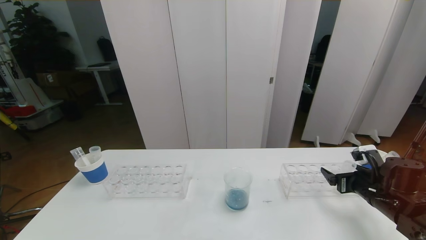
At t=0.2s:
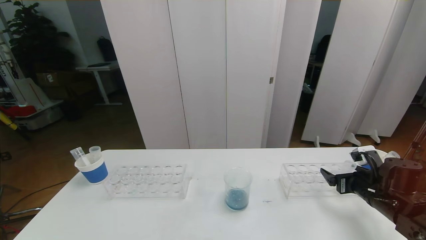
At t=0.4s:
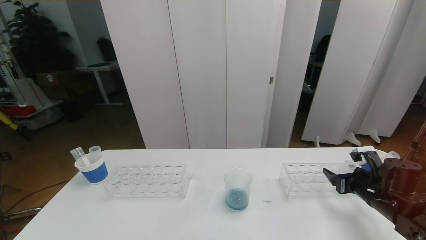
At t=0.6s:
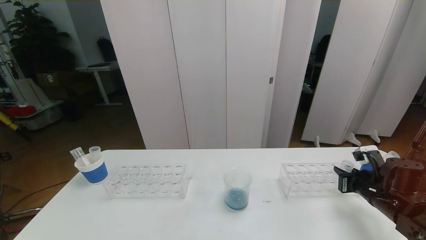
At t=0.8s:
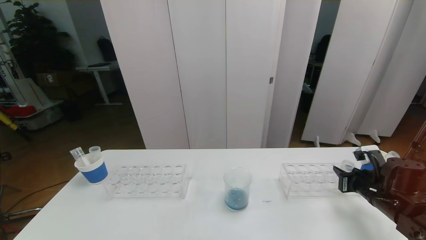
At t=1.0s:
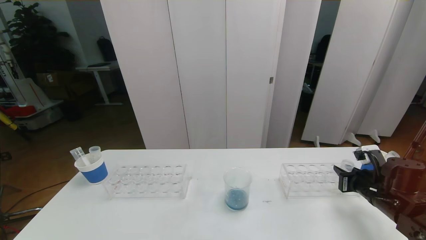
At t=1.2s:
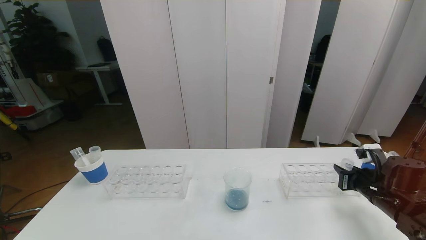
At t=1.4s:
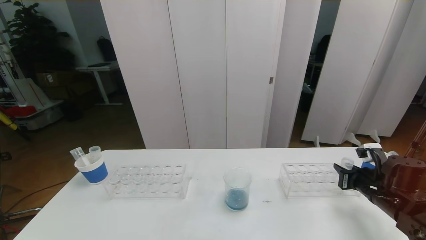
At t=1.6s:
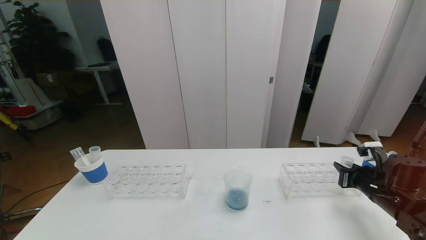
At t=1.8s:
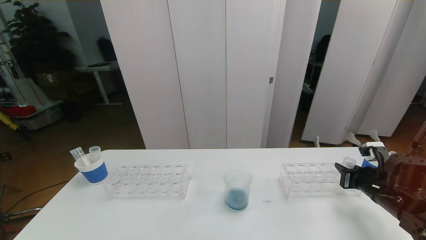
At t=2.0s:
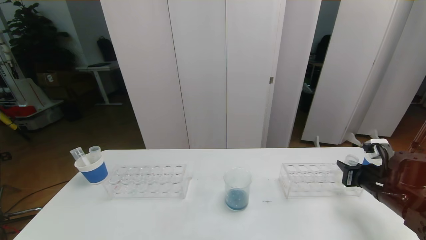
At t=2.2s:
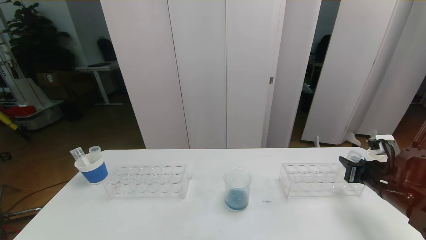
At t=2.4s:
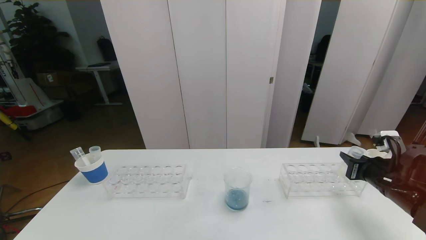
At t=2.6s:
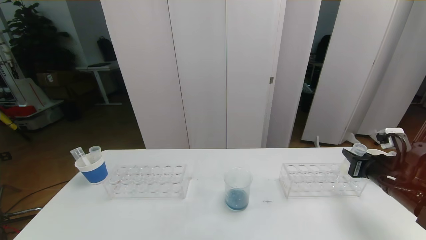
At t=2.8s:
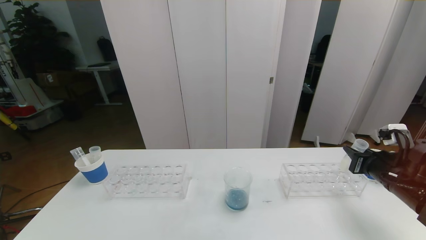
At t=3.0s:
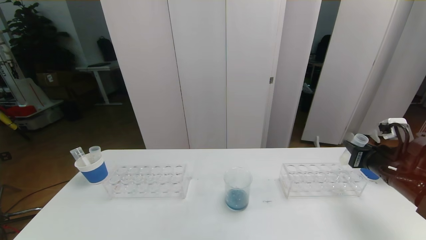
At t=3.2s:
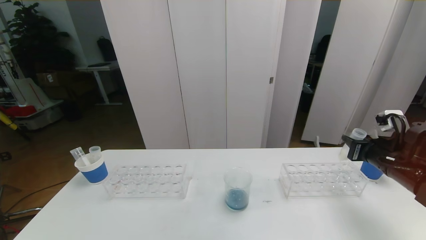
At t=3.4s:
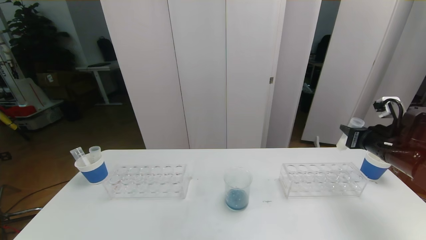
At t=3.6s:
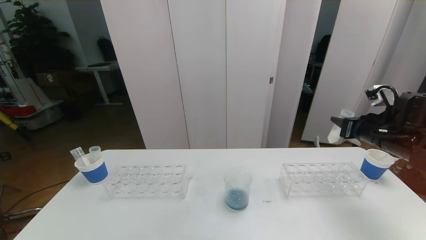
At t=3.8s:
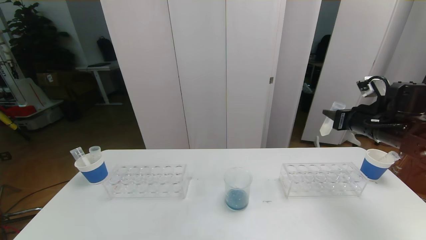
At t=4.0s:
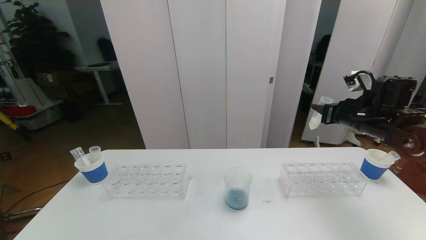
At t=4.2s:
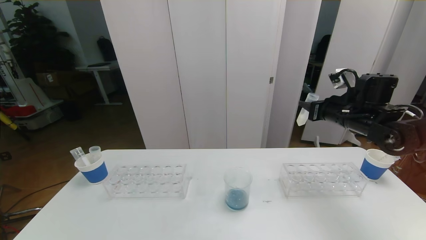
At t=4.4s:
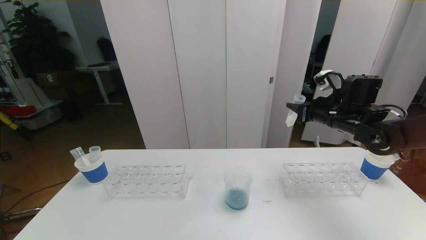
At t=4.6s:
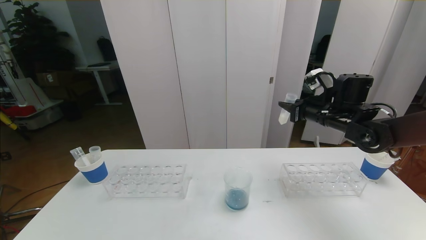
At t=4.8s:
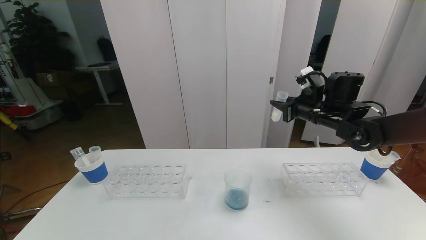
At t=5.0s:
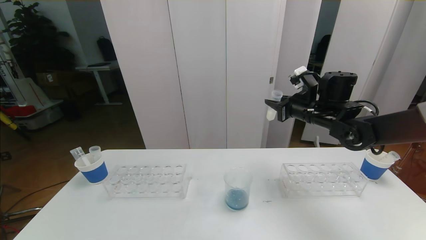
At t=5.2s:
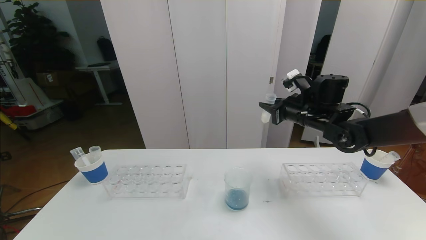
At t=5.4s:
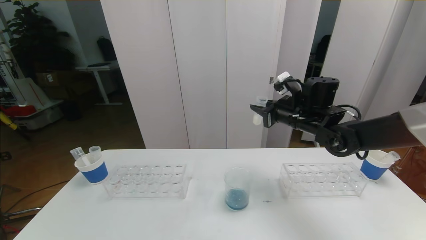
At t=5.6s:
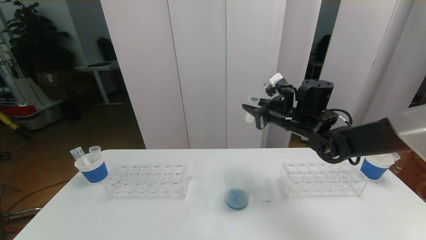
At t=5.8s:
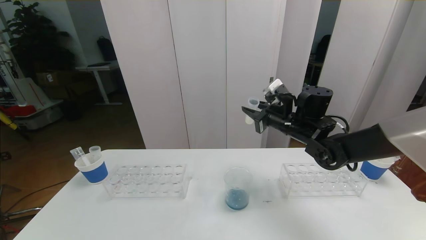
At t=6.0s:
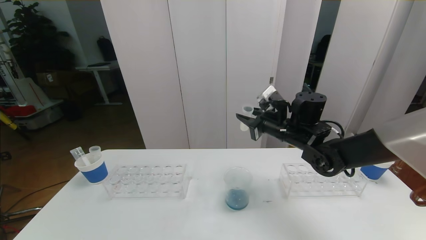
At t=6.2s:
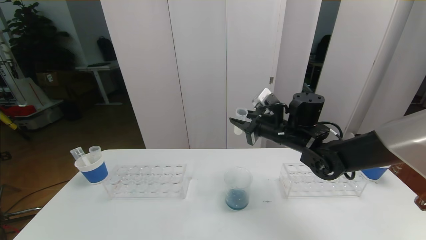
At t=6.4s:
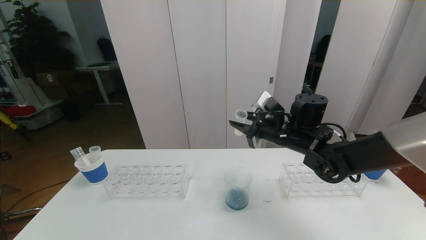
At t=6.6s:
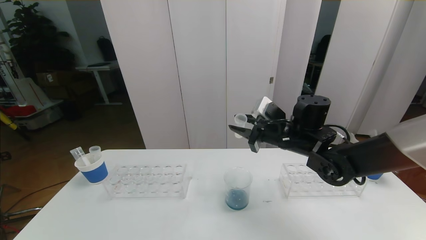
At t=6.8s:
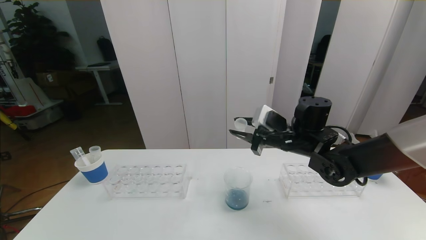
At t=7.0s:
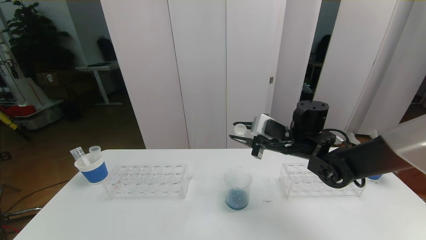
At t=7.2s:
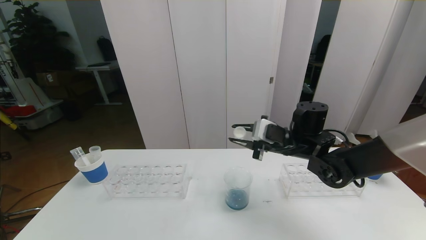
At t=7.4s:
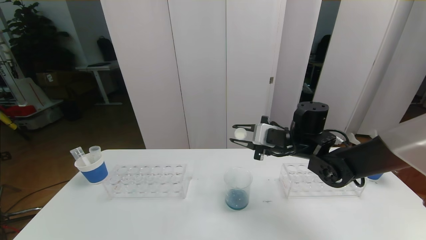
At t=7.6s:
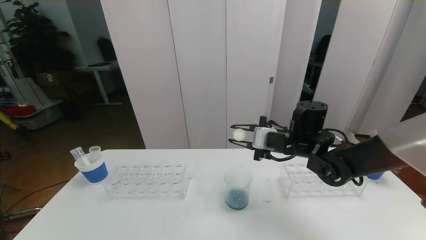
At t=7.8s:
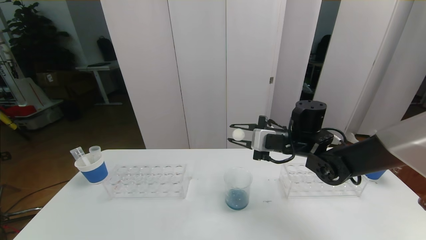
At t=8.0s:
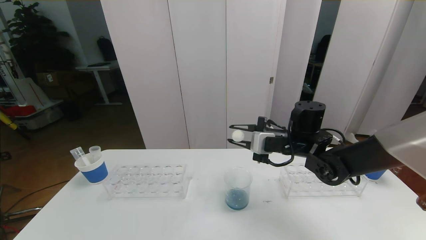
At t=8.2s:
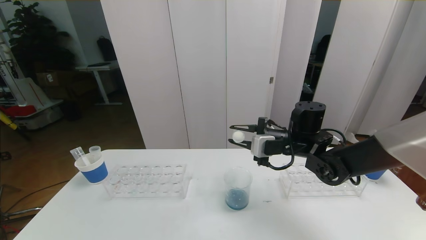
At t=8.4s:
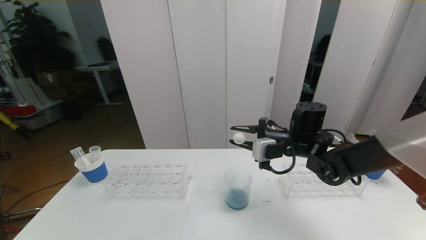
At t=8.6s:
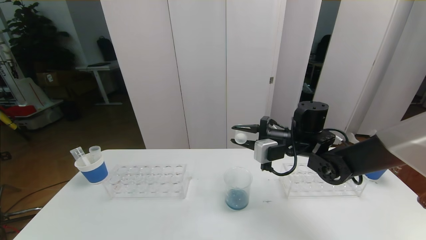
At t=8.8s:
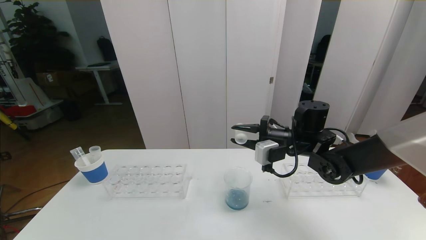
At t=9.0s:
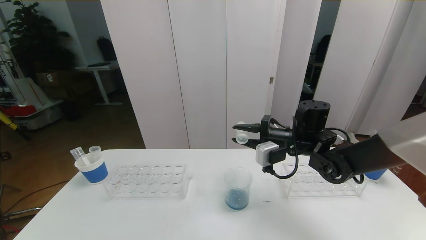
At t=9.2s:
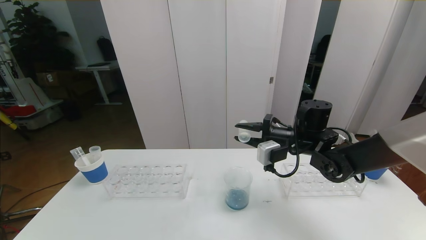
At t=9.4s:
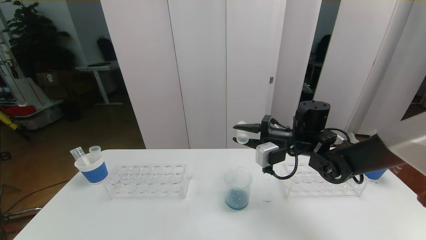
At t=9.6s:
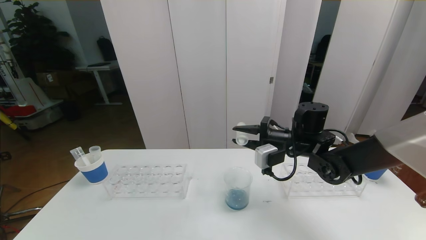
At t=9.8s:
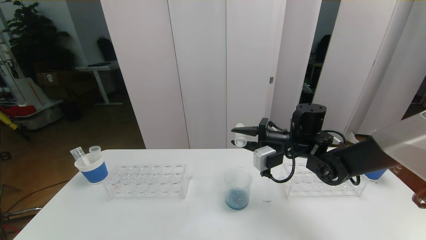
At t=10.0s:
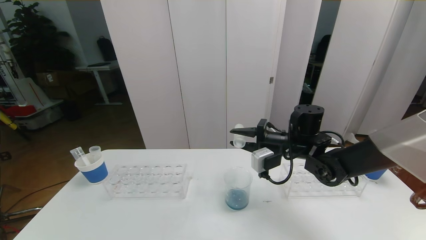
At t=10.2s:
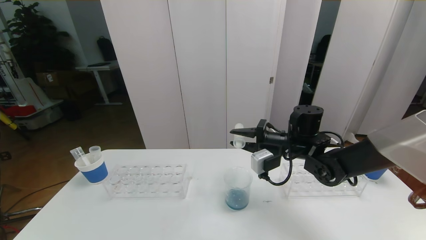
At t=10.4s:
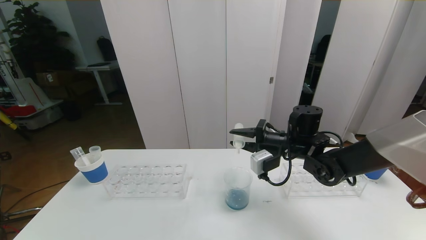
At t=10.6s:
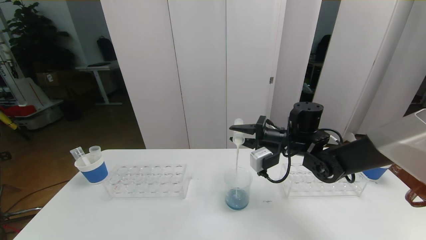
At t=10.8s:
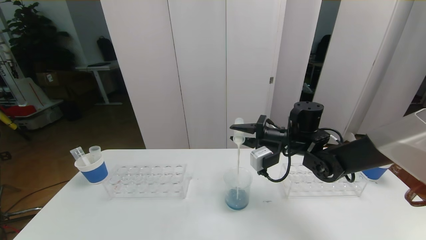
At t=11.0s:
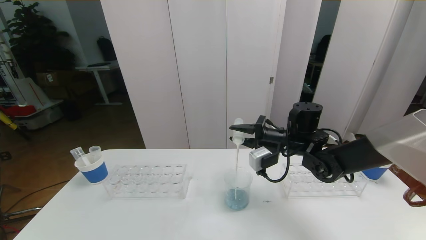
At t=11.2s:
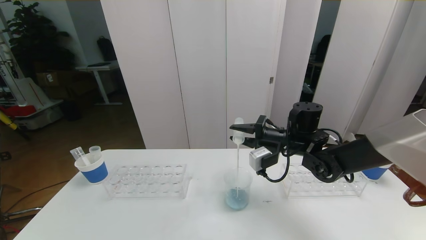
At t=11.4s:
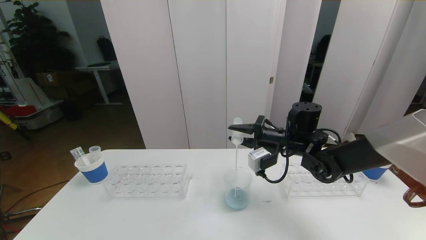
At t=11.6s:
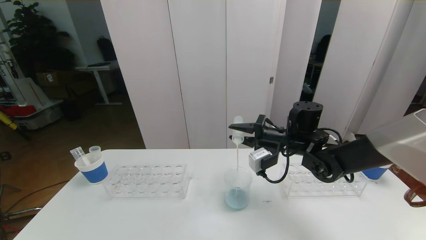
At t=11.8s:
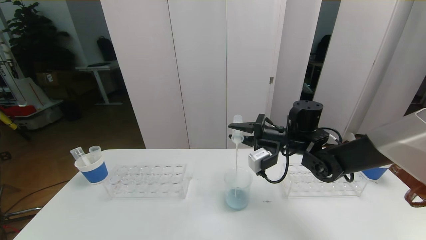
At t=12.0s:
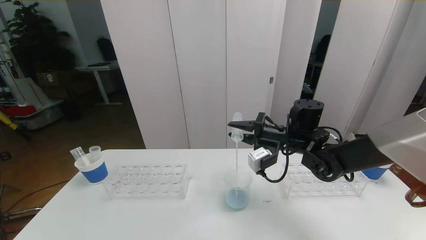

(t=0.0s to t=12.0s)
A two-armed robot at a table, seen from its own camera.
Task of the whole recording: pick up the test tube with red pigment the test tube with blue pigment and the test tube with white pigment by grippers and pour them into the beaker.
t=0.0s - t=1.6s: The right gripper closes up.
t=1.6s - t=3.0s: The right gripper moves upward, approximately 5 cm.
t=3.0s - t=4.4s: The right gripper heads forward, to the left and upward, covering about 15 cm.
t=4.4s - t=6.0s: The right gripper goes some 10 cm to the left.
t=9.0s - t=12.0s: There are only small adjustments of the grippers.

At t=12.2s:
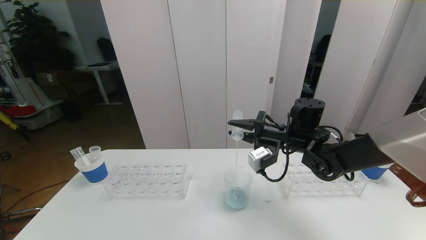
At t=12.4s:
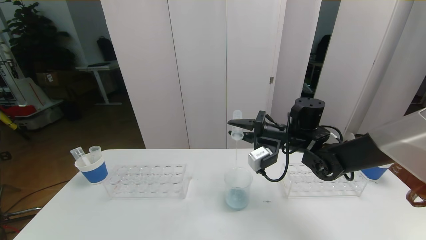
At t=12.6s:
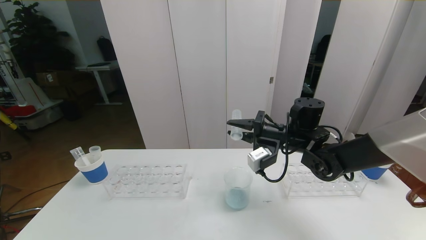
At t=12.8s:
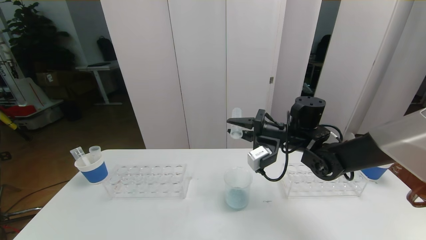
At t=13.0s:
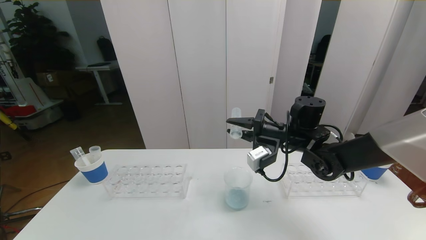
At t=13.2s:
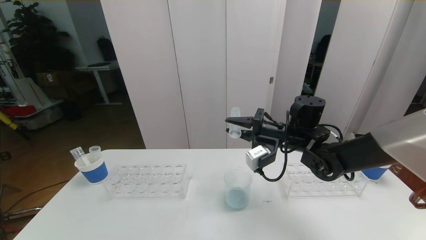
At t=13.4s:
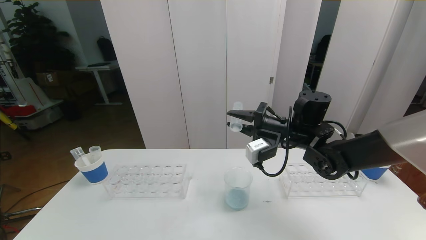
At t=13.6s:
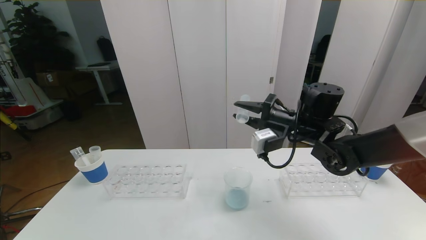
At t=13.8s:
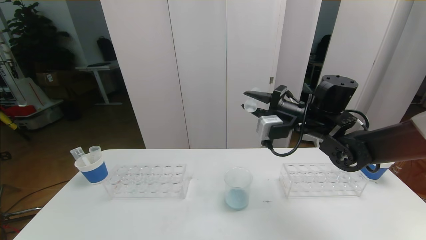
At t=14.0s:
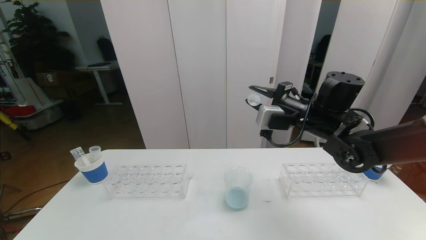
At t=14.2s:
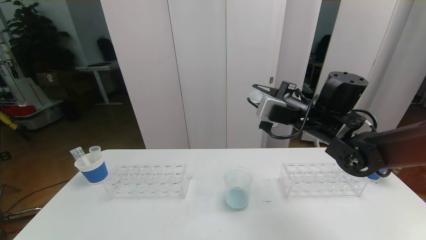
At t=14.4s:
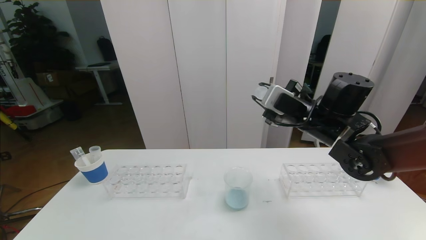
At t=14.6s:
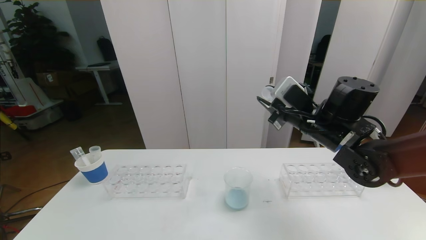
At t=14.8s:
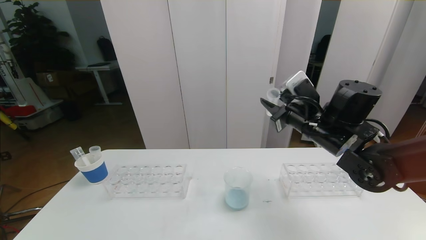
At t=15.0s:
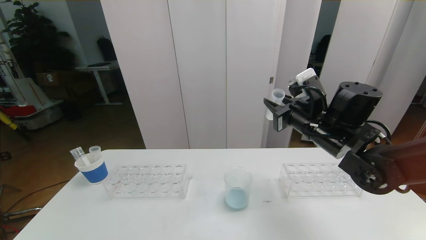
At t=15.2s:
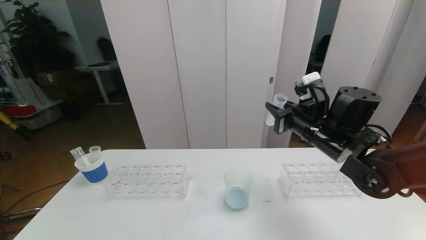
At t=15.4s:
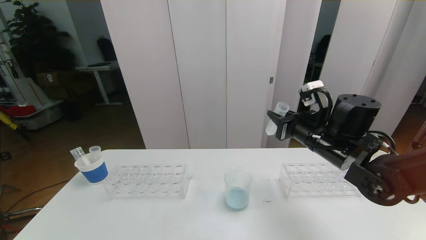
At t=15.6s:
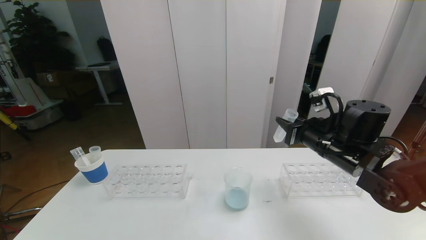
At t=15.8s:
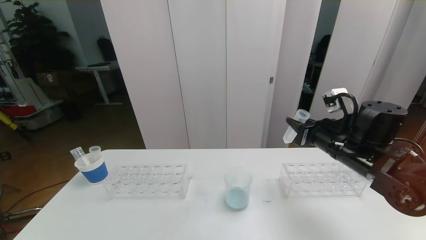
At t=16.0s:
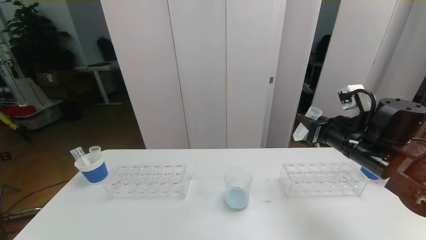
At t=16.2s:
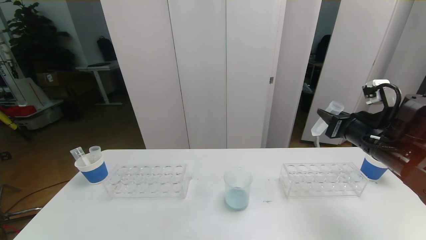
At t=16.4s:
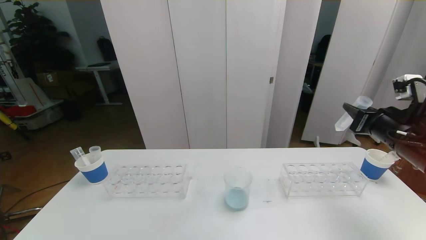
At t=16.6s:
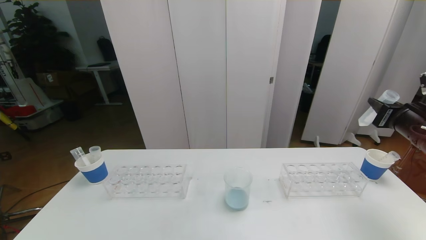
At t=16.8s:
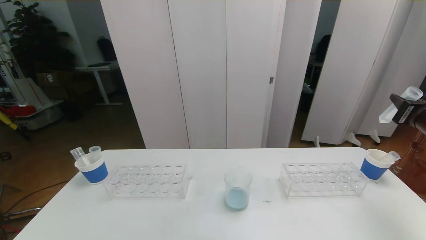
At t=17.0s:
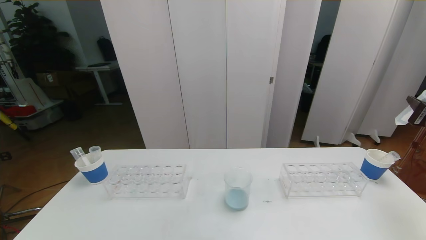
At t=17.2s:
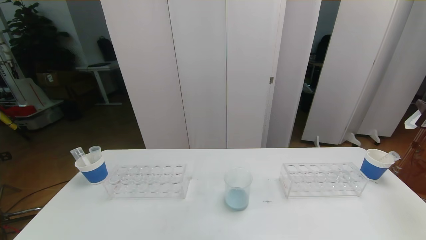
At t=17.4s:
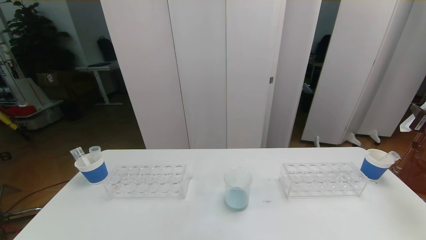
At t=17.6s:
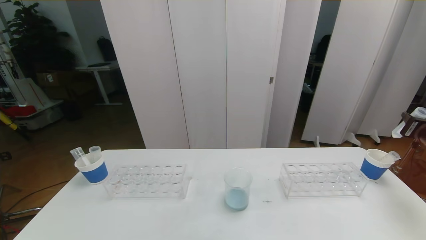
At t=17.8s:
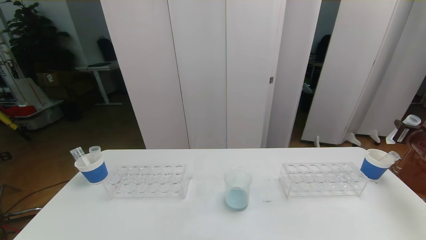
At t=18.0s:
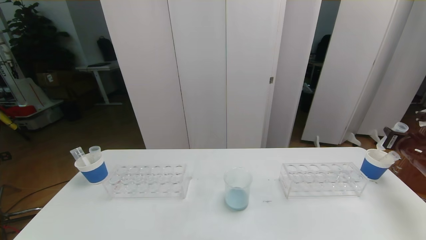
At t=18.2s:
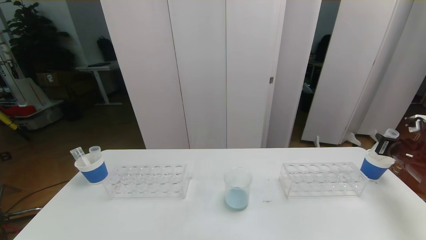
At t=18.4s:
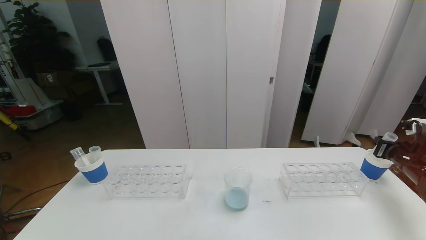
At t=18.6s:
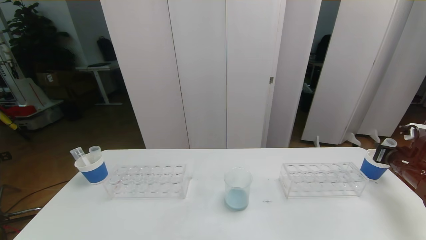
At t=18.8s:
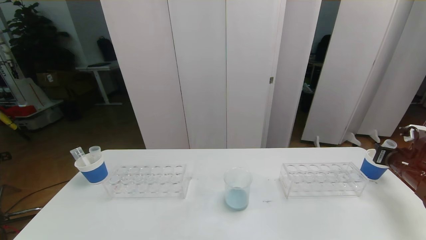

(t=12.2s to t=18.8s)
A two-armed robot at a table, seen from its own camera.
Task of the whole recording: pick up the test tube with red pigment the test tube with blue pigment and the test tube with white pigment by grippers and pour them into the beaker.
t=12.2s - t=13.8s: The right gripper heads upward, covering approximately 5 cm.
t=13.8s - t=15.4s: The right gripper shifts by roughly 5 cm.
t=15.4s - t=17.2s: The right gripper moves to the right, about 25 cm.
t=17.2s - t=18.8s: The right gripper moves downward, approximately 15 cm.
